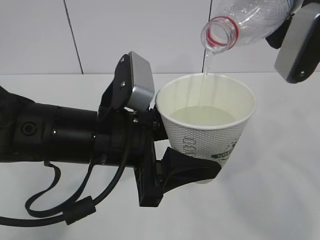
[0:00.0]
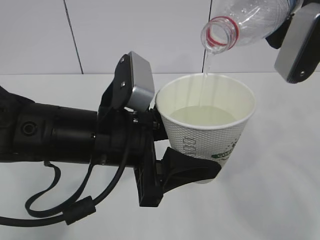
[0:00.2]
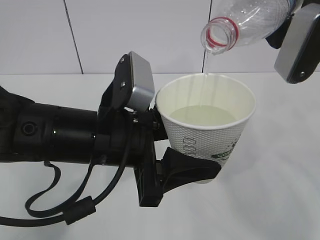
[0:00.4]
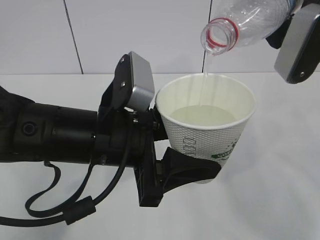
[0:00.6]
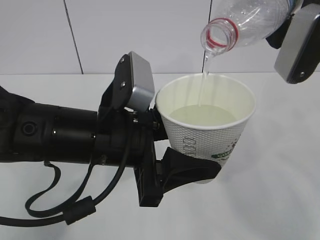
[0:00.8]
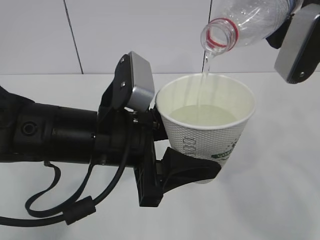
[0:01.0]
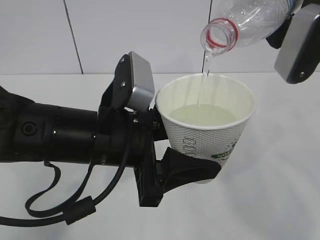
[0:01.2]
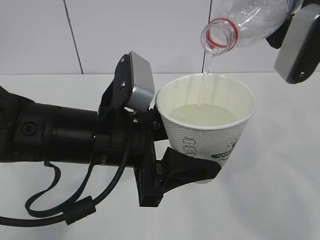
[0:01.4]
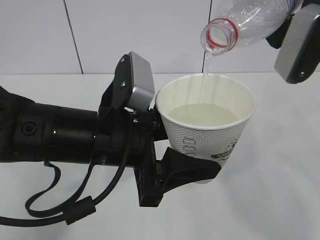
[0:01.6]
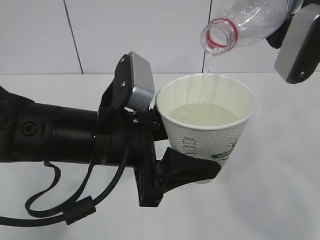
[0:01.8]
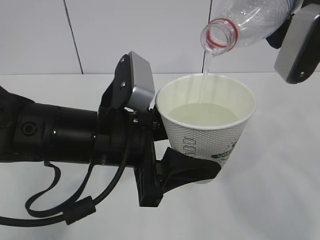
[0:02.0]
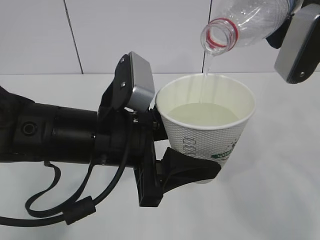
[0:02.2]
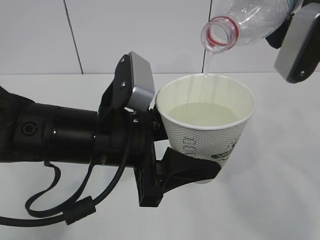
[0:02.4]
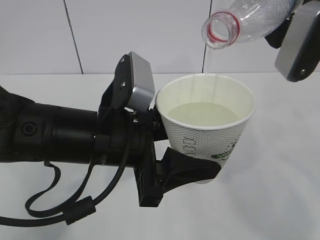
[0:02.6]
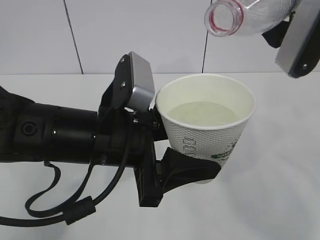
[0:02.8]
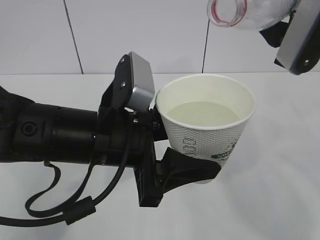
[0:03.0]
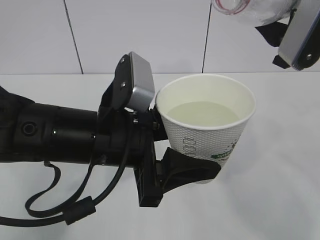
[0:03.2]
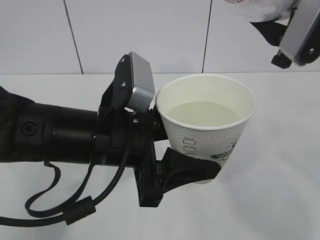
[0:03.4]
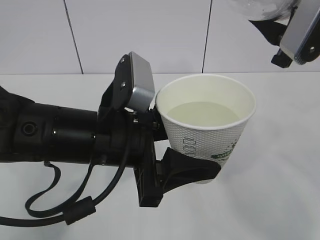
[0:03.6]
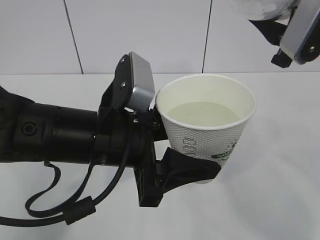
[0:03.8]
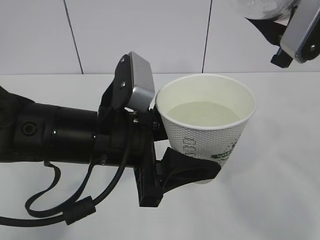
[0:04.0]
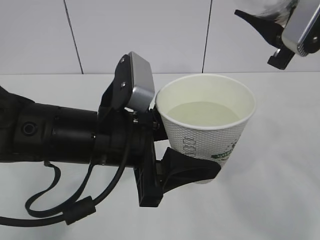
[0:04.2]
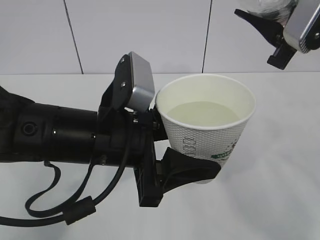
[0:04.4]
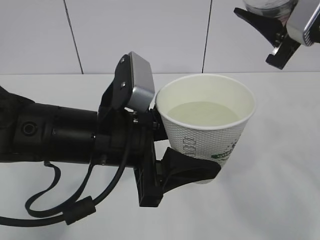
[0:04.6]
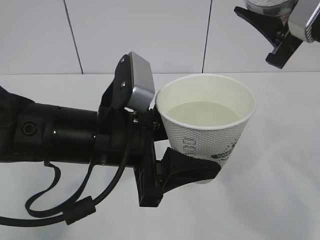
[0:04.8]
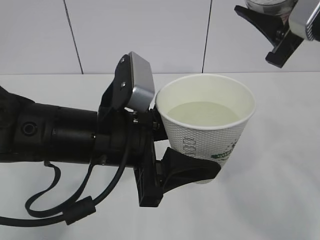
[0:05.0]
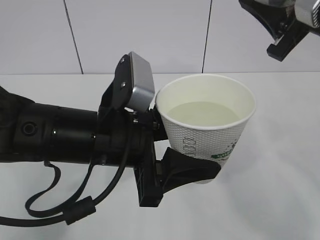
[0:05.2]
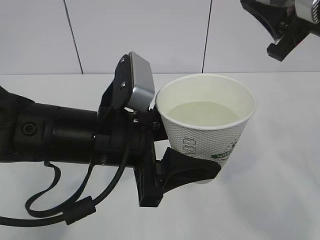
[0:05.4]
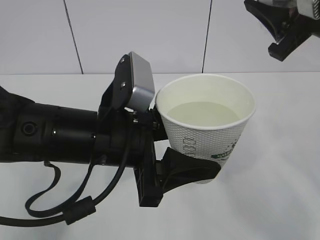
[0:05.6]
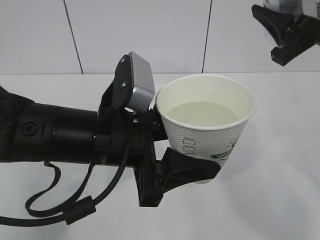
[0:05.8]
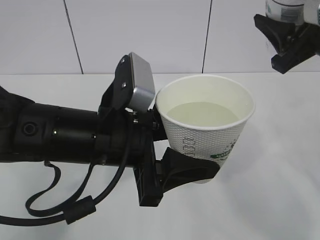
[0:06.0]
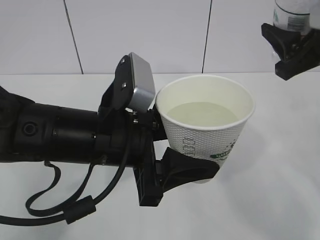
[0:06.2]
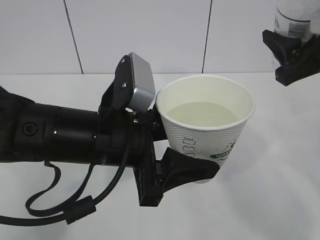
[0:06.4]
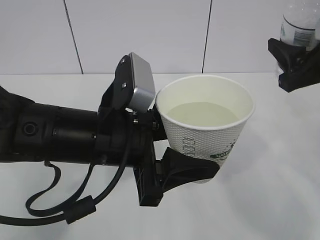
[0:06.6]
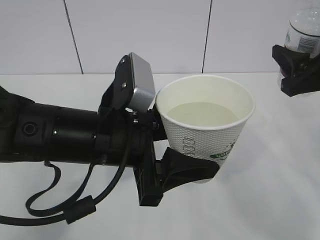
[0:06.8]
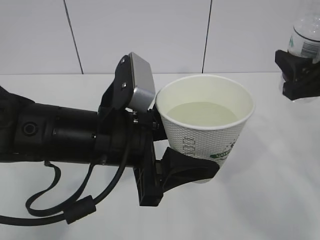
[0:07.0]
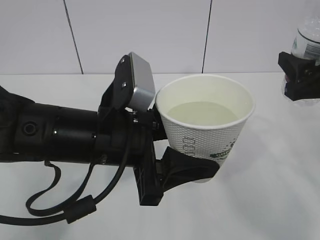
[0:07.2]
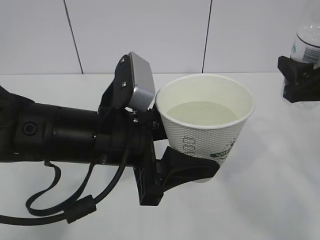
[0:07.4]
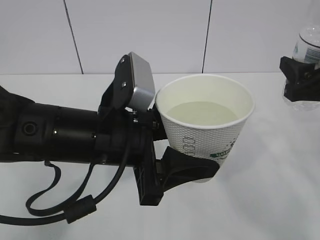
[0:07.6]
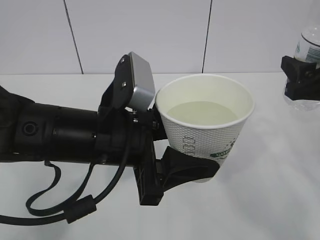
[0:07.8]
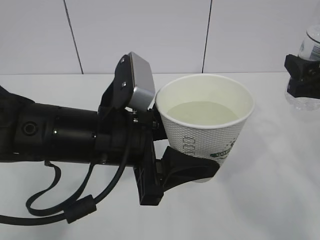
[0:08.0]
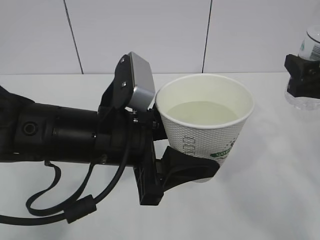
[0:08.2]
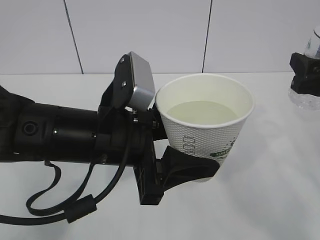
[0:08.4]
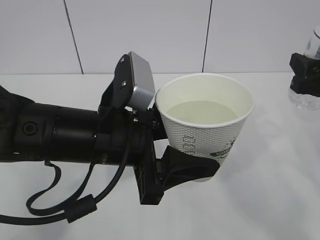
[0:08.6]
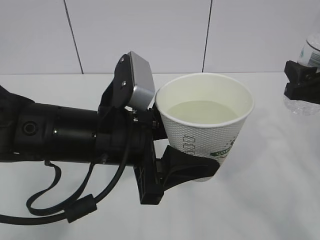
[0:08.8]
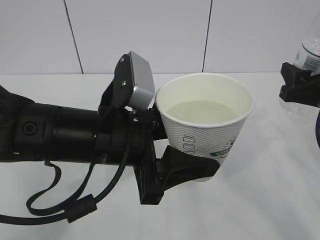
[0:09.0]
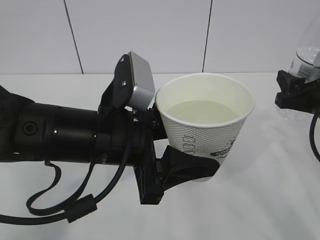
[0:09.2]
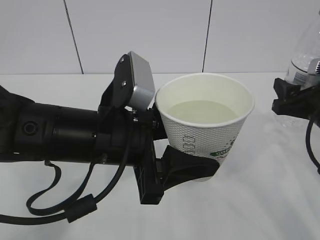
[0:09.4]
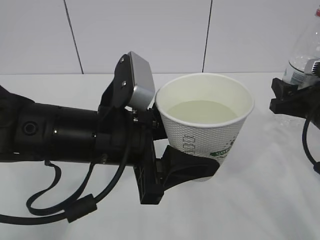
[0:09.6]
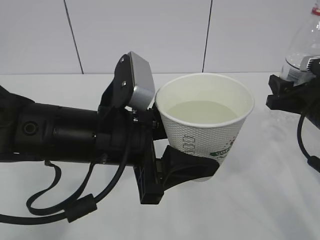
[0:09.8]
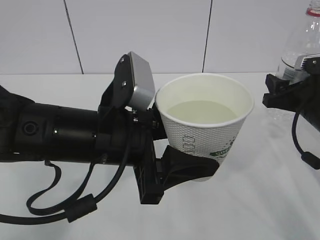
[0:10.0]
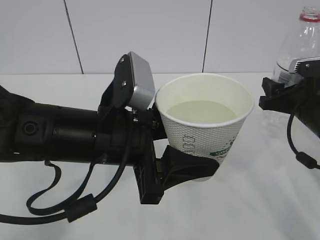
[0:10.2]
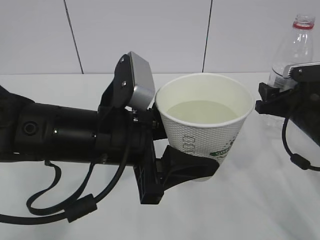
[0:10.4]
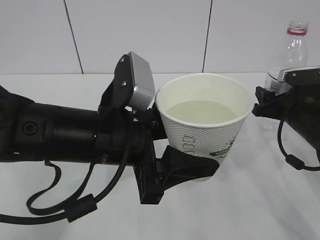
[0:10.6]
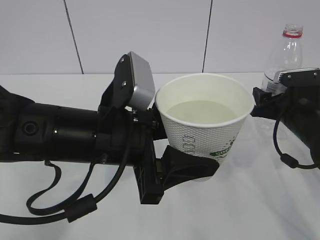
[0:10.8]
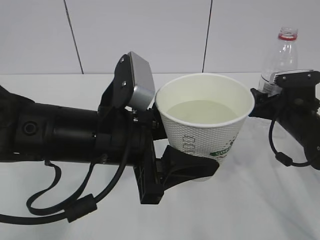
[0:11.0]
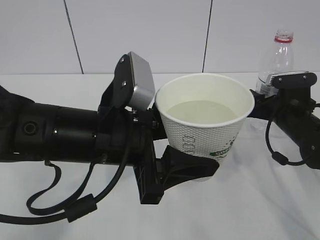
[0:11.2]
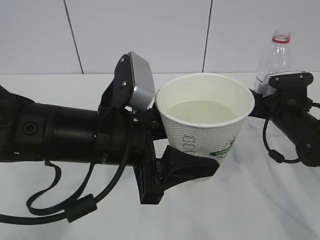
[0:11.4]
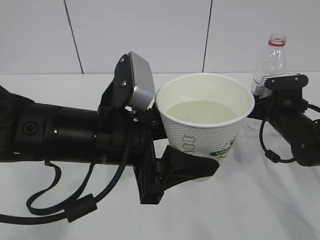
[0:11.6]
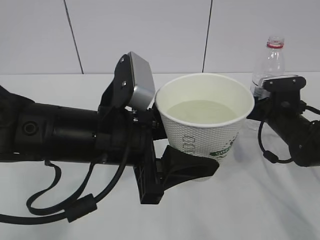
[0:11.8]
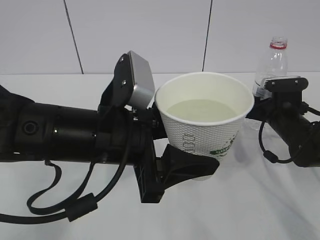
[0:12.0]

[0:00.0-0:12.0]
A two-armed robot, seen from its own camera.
0:00.0 to 0:01.6: The two grippers keep their place.
0:01.6 to 0:03.0: The grippers move only a little.
0:03.0 to 0:04.4: There are only small adjustments of the grippers.
0:06.0 to 0:07.6: The right gripper is displaced downward by roughly 5 cm.
0:07.6 to 0:09.0: The grippers make only small movements.
0:09.0 to 0:10.4: The right gripper is displaced downward and forward by roughly 10 cm.
0:10.4 to 0:12.0: The right gripper goes roughly 10 cm downward and forward.

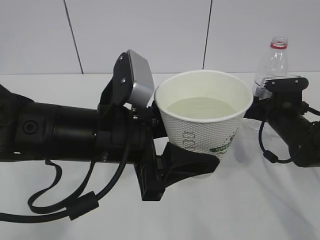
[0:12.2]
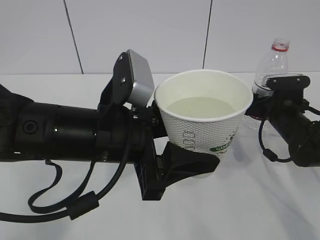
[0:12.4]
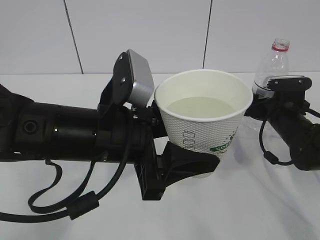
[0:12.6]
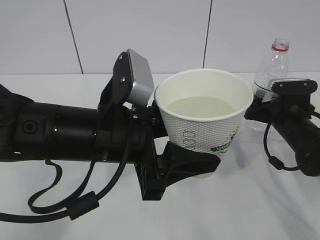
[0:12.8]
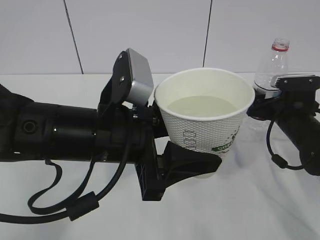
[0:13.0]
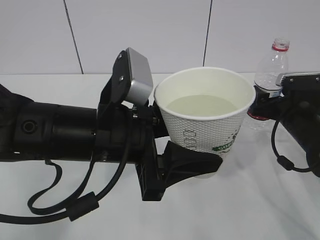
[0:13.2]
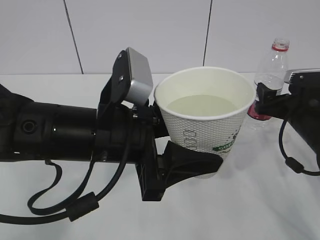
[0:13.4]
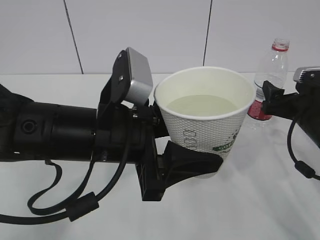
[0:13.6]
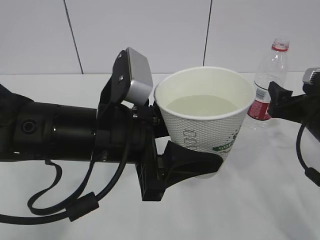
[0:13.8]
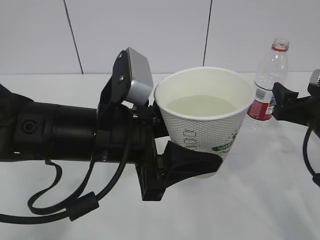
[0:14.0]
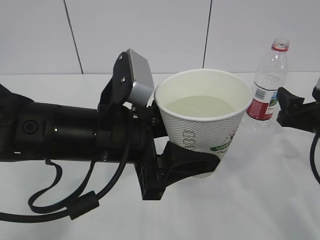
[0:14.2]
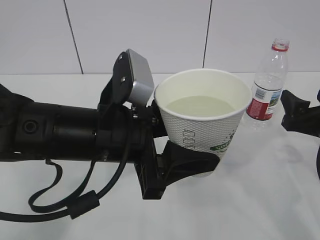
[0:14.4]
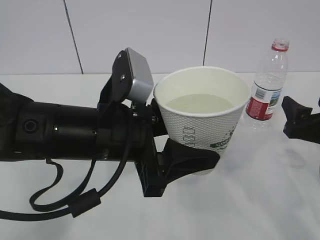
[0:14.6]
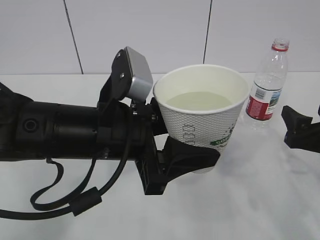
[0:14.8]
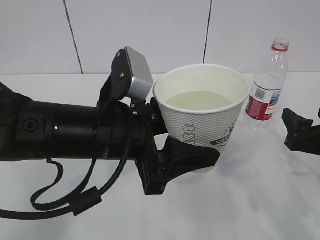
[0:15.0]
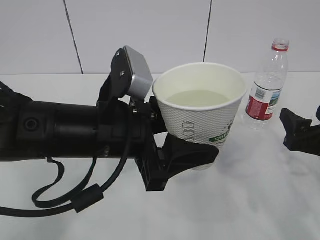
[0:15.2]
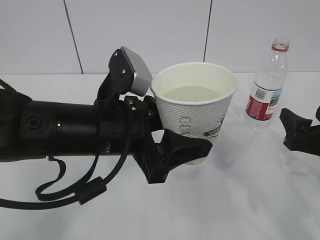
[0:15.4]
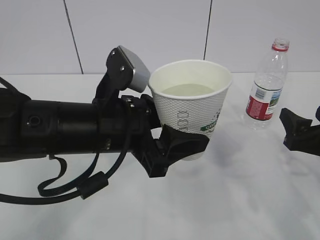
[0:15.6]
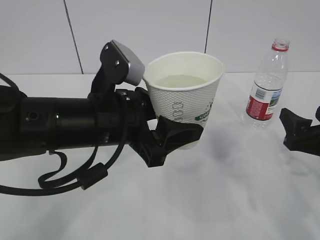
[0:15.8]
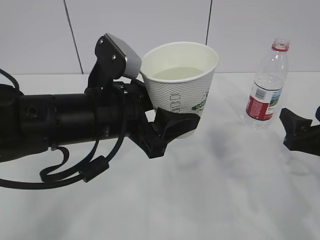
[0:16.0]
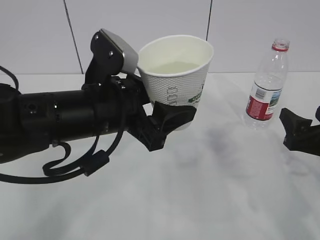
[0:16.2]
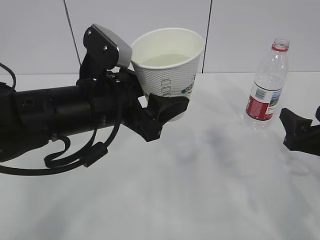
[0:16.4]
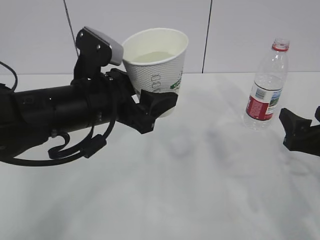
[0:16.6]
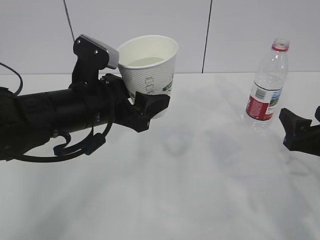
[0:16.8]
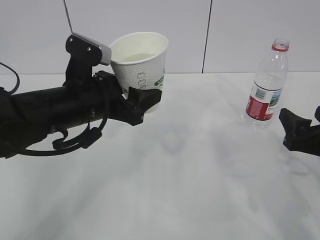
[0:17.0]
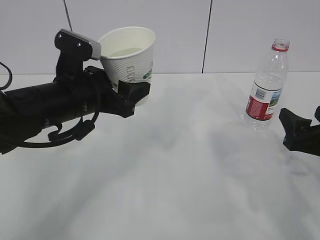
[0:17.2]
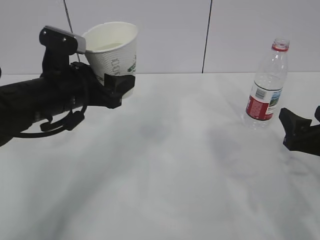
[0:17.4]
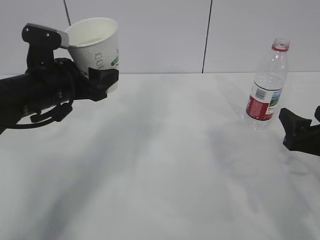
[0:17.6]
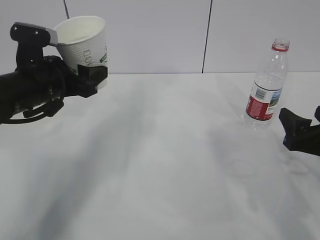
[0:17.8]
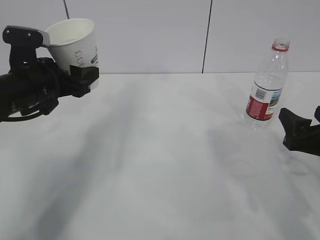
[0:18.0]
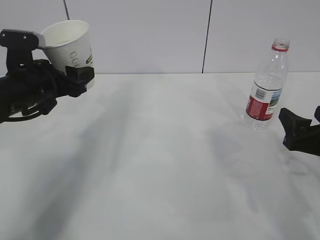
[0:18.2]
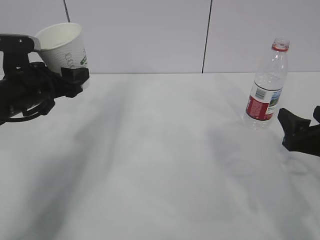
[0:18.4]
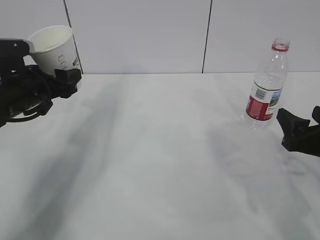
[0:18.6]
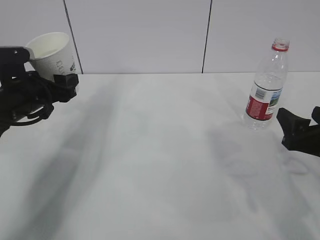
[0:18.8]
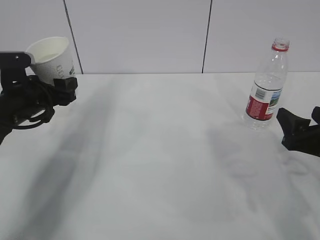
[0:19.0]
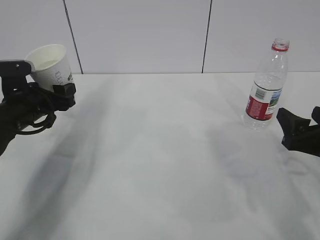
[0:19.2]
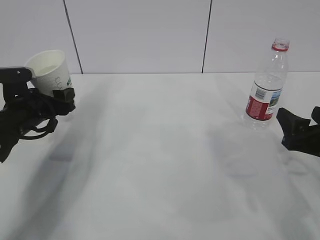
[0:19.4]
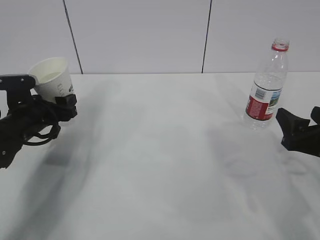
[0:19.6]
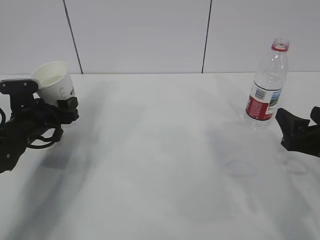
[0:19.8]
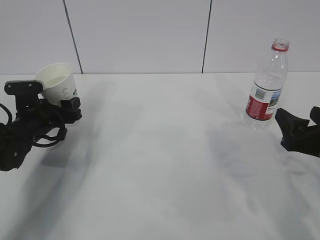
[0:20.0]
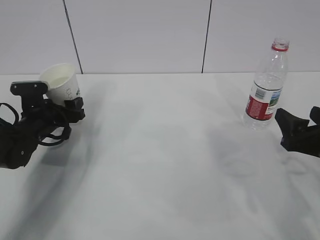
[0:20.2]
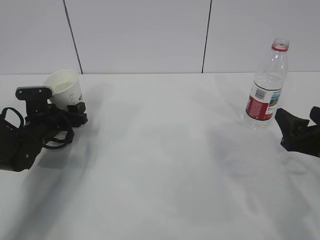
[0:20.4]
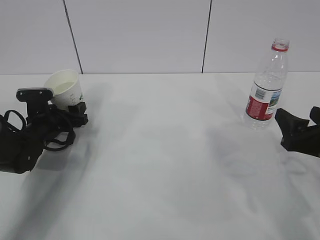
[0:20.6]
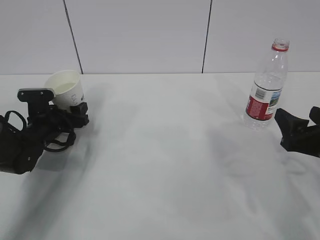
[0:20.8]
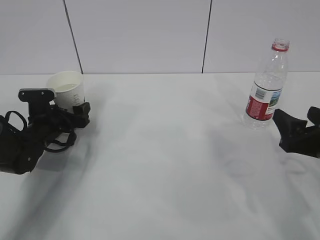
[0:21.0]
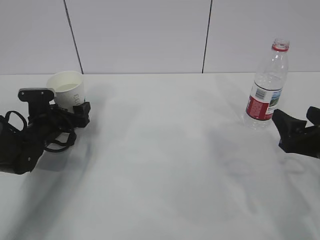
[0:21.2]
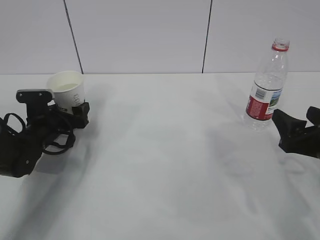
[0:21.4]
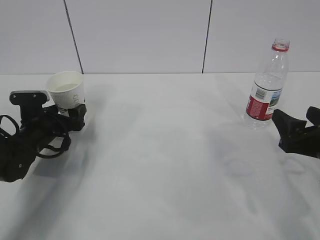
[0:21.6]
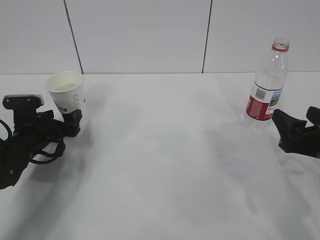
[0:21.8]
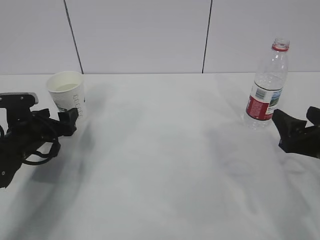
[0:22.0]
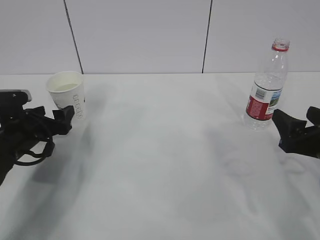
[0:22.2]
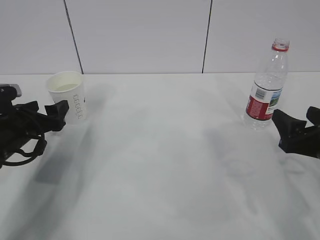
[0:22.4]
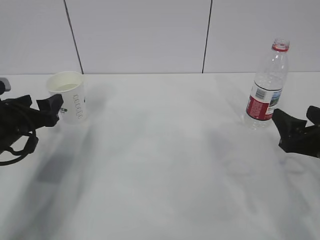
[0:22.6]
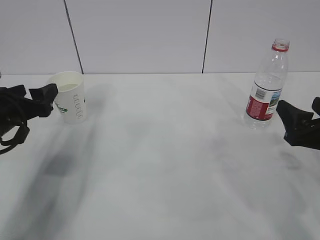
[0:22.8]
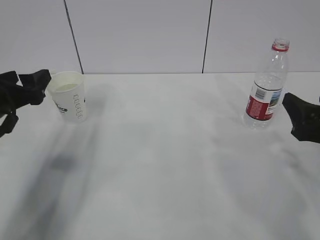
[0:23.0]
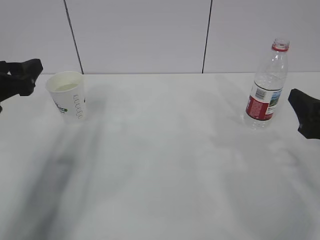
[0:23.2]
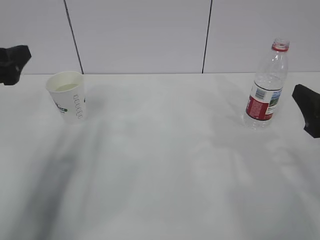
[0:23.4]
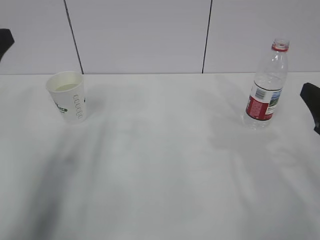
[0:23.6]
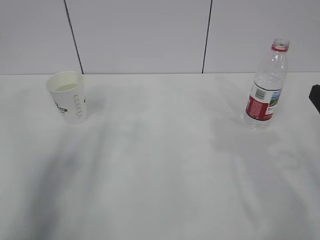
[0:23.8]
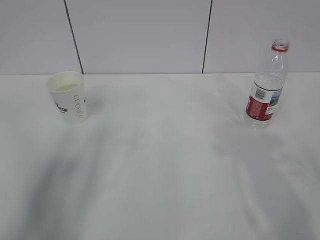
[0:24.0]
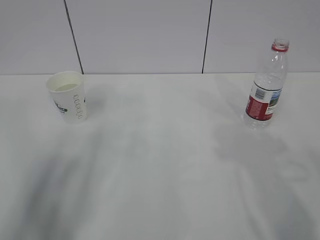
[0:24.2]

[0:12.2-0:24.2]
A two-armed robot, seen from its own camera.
0:12.2 to 0:13.8: The right gripper moves backward and upward, some 10 cm, and opens its fingers.
0:13.8 to 0:15.2: The right gripper is displaced backward by about 5 cm.
0:15.2 to 0:16.6: The left gripper is displaced forward by approximately 5 cm.
0:16.6 to 0:18.2: The left gripper travels to the left and forward by some 15 cm.
0:18.2 to 0:19.8: The left gripper shifts some 10 cm downward.
0:19.8 to 0:21.2: The left gripper ends up some 5 cm from where it was, and opens up.
0:21.2 to 0:22.6: The left gripper shifts some 10 cm backward and upward.
0:22.6 to 0:24.2: The right gripper heads upward and backward, covering some 15 cm. The left gripper is displaced upward and backward by about 25 cm.
